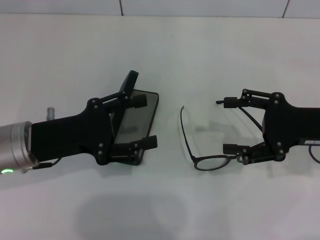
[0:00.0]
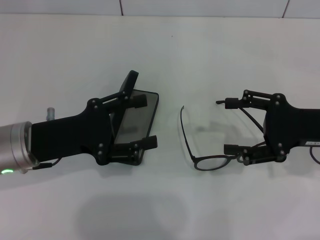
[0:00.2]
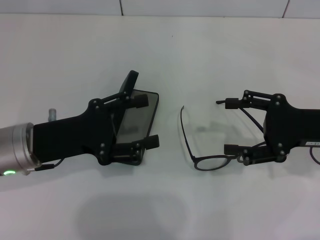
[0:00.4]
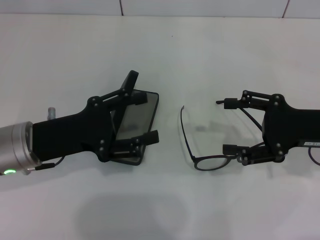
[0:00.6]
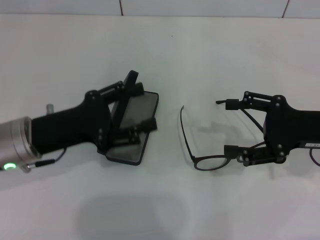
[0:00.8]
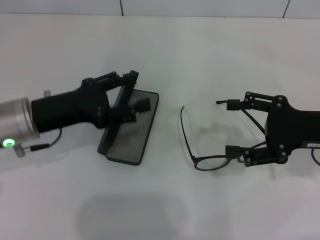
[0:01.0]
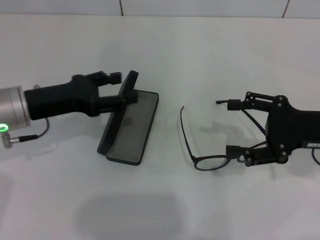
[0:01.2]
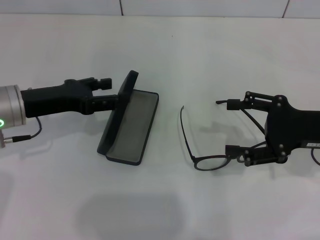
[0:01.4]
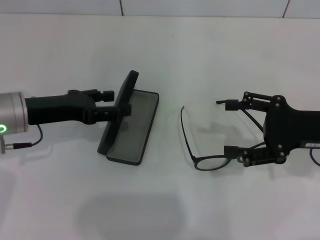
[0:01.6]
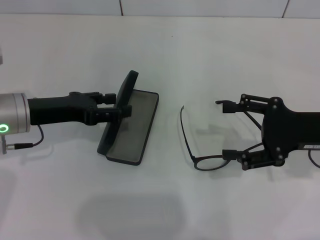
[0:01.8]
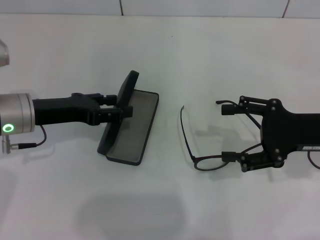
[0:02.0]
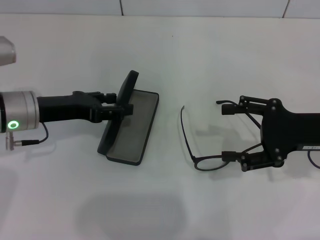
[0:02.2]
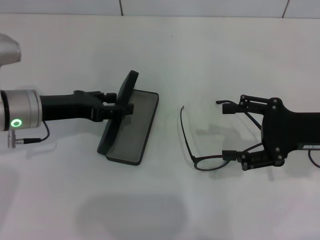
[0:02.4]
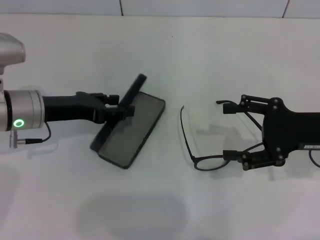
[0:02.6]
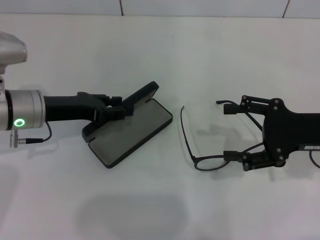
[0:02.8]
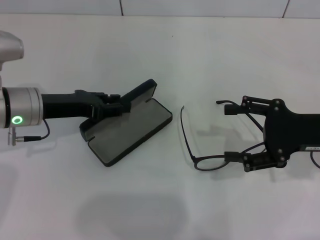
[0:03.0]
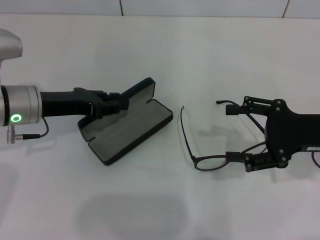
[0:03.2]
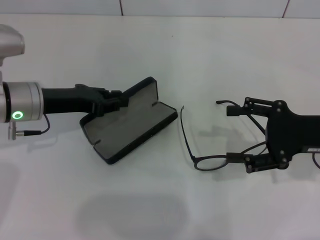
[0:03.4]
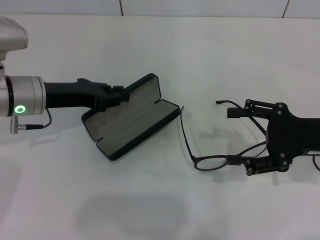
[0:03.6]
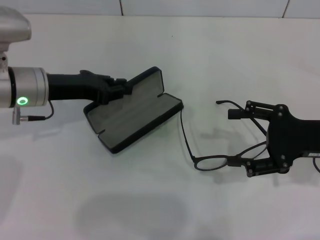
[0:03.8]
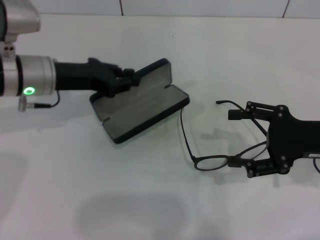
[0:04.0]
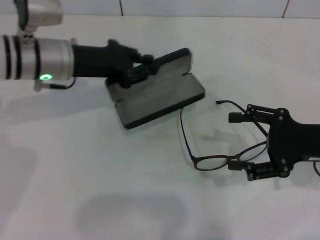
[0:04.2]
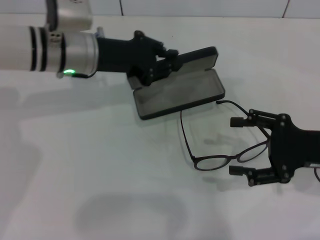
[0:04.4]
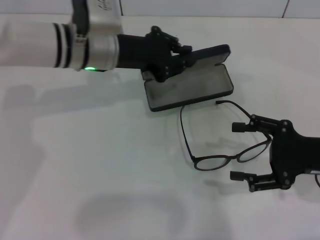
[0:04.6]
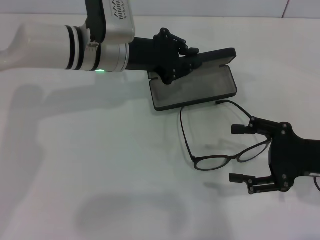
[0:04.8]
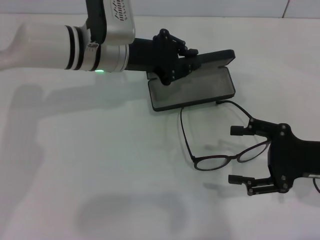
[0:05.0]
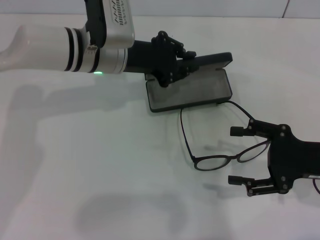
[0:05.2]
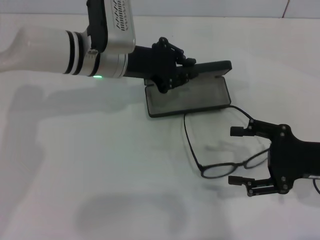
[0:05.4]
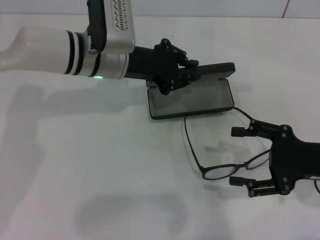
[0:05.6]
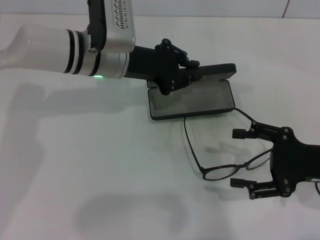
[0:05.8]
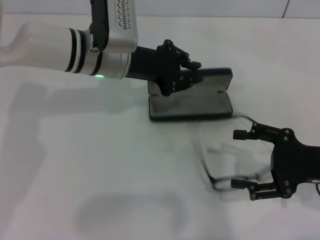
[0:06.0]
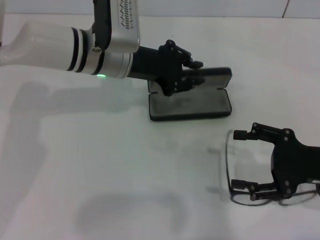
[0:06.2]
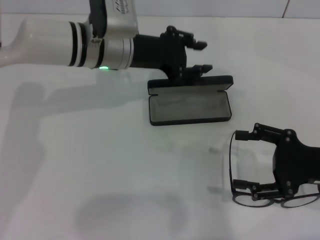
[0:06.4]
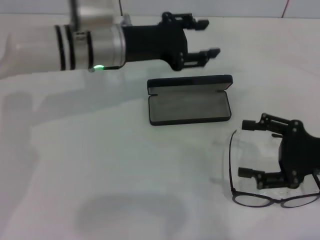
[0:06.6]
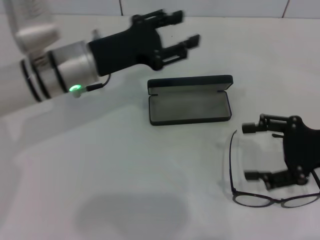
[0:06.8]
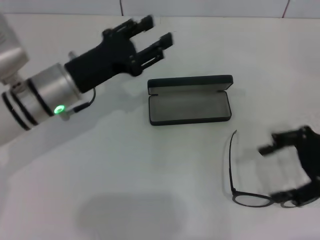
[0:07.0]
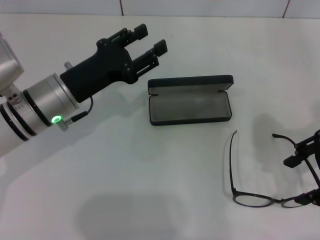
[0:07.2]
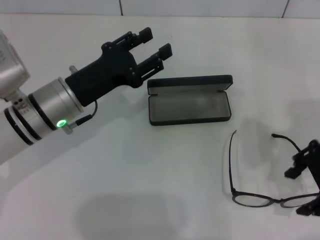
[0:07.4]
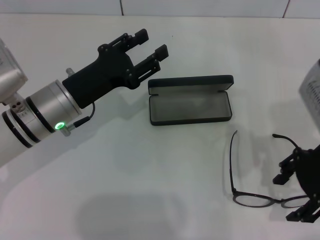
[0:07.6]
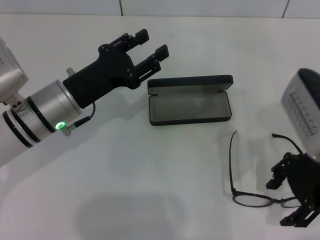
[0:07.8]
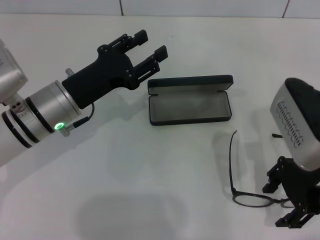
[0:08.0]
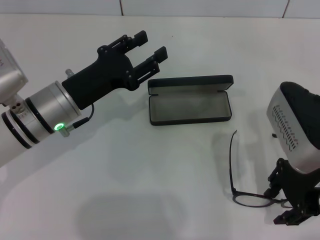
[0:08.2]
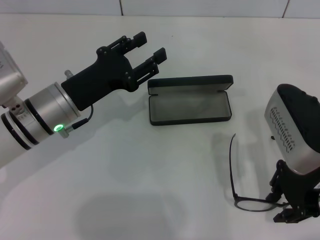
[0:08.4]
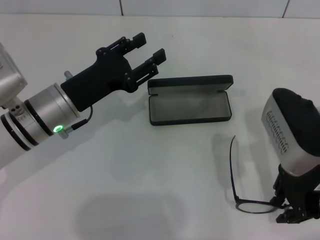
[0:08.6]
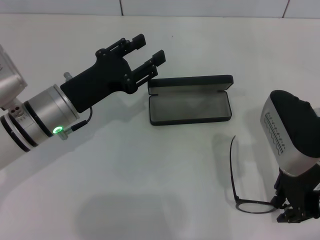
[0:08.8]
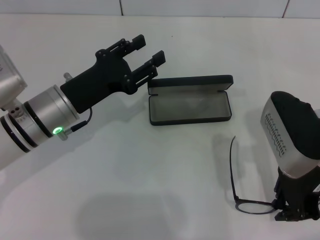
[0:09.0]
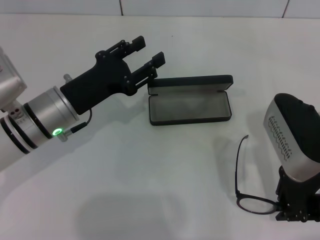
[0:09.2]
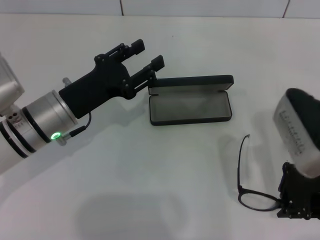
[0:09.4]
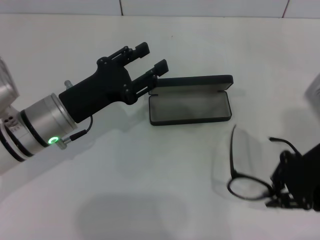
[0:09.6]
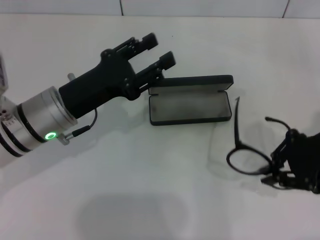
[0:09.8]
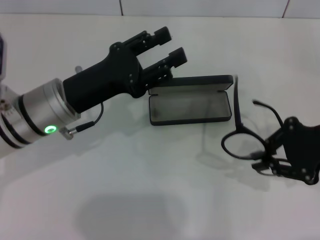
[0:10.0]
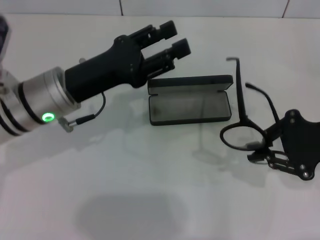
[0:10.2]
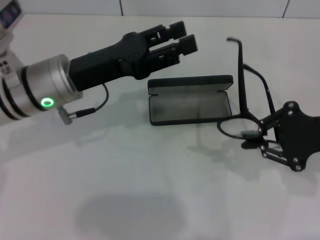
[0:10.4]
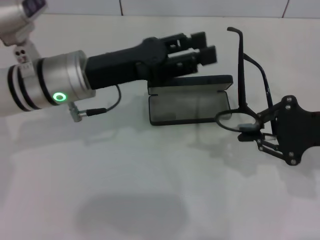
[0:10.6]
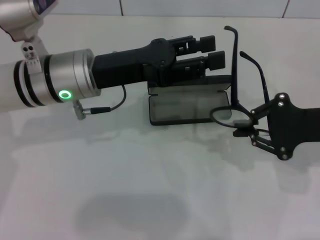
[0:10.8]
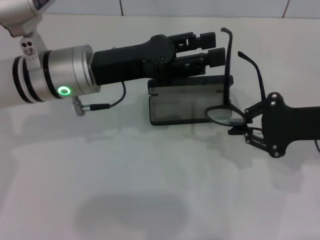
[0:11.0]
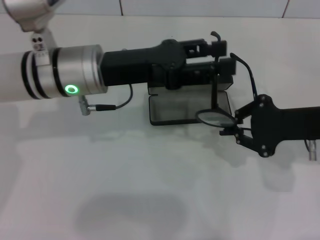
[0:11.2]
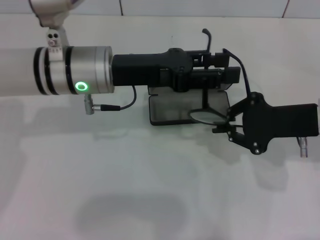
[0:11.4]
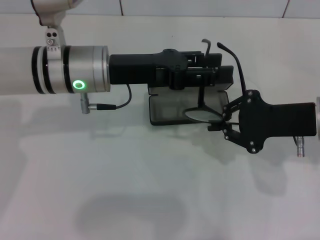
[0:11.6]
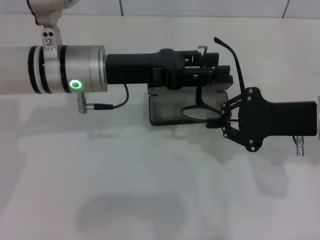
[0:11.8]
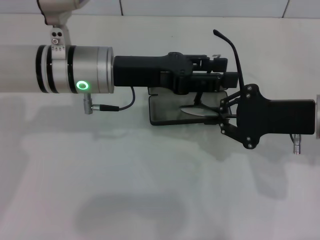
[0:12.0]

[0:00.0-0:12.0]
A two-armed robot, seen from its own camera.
Step, 0:00.0 to 0:03.6: Grab the glasses case with your left hand.
Step, 0:03.8 to 0:06.2: Place the glasses case in the center of the table with your left hand.
Step, 0:06.4 to 0:09.2: Grab the eyeglass frame with your right hand.
0:00.0 to 0:01.6: The left gripper shifts by approximately 5 cm.
0:01.6 to 0:03.0: The left gripper closes its fingers.
0:03.0 to 0:04.4: The left gripper heads to the right, forward and upward, covering roughly 10 cm, and closes its fingers.
0:06.0 to 0:07.6: The right gripper is displaced upward and to the left by roughly 10 cm, while the left gripper moves backward, to the left and downward, about 10 cm, and opens.
0:07.6 to 0:09.0: The right gripper closes.
0:09.0 to 0:10.4: The left gripper moves upward, roughly 5 cm. The right gripper heads to the right, covering roughly 10 cm.
0:10.4 to 0:12.0: The right gripper changes place by approximately 5 cm, while the left gripper changes place by roughly 5 cm.

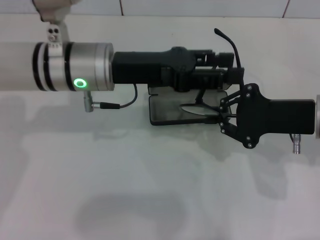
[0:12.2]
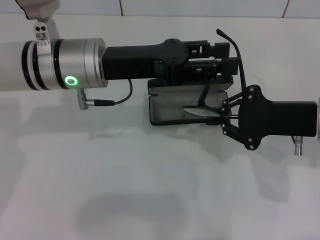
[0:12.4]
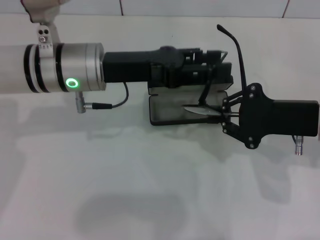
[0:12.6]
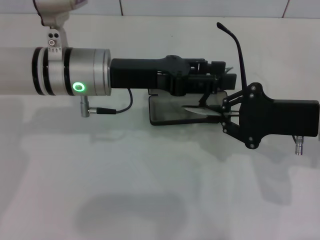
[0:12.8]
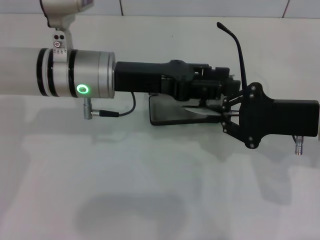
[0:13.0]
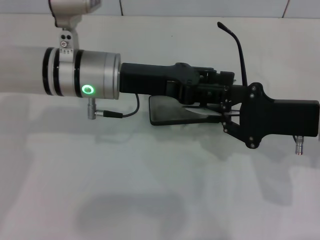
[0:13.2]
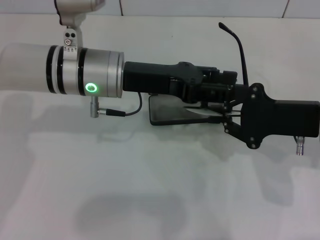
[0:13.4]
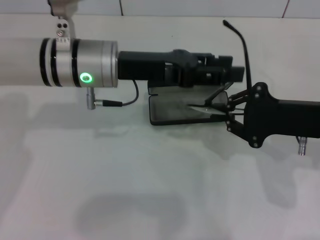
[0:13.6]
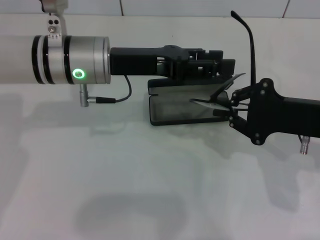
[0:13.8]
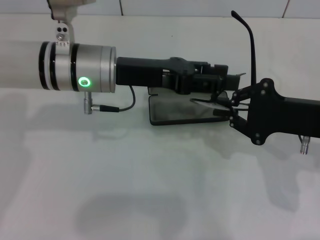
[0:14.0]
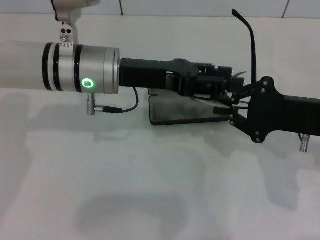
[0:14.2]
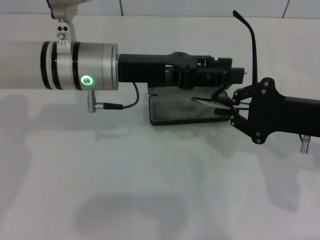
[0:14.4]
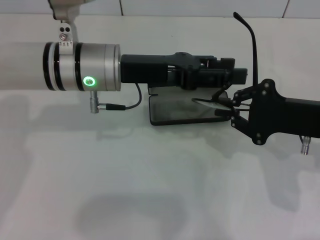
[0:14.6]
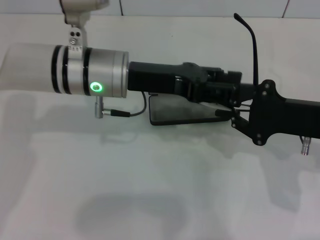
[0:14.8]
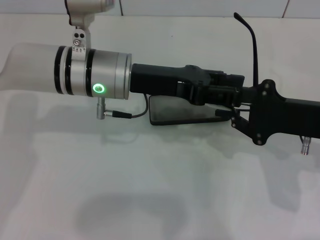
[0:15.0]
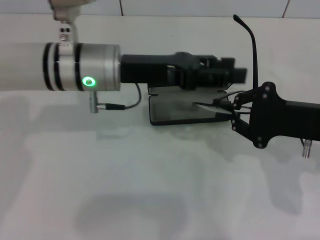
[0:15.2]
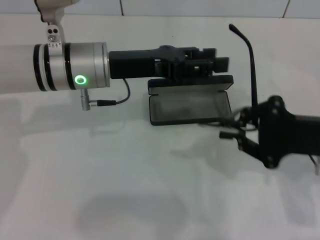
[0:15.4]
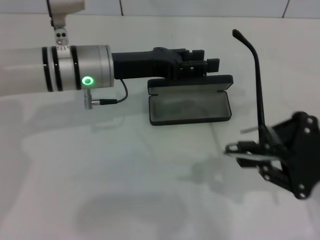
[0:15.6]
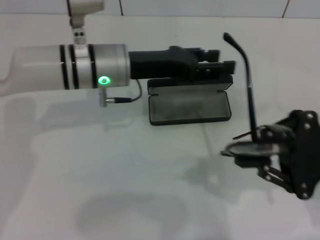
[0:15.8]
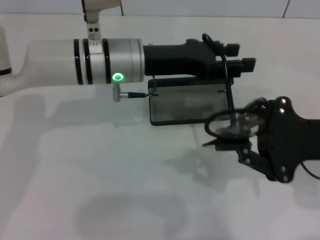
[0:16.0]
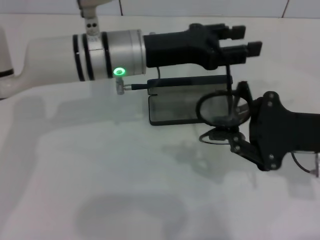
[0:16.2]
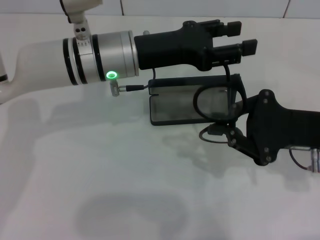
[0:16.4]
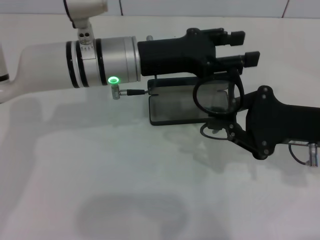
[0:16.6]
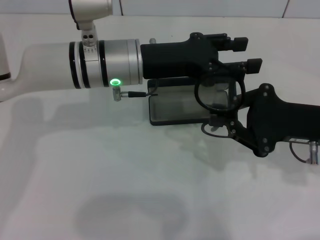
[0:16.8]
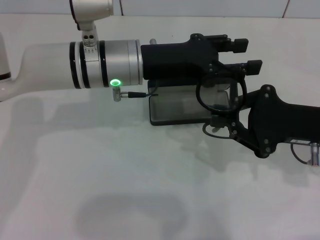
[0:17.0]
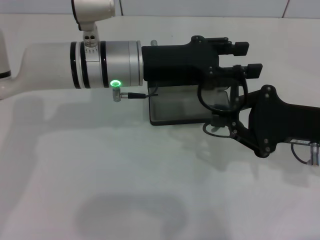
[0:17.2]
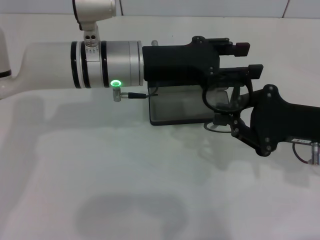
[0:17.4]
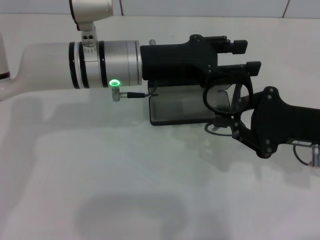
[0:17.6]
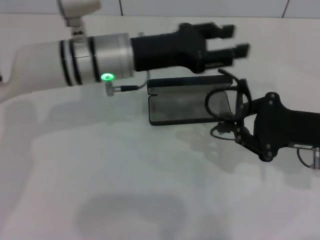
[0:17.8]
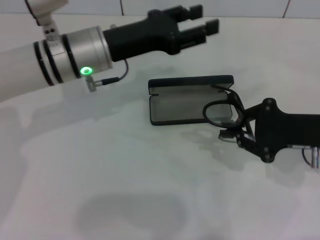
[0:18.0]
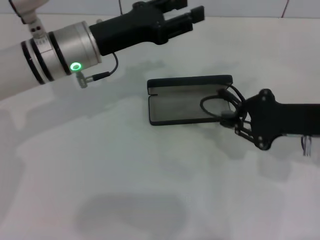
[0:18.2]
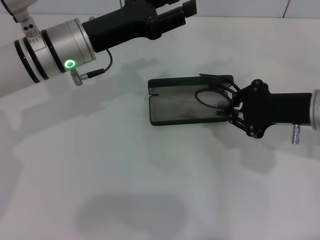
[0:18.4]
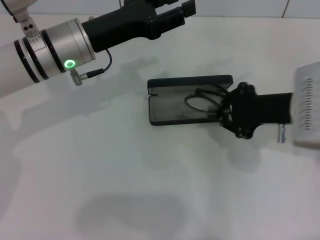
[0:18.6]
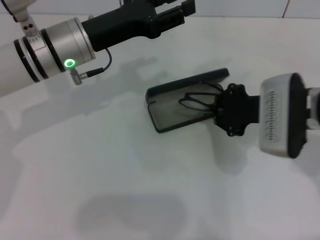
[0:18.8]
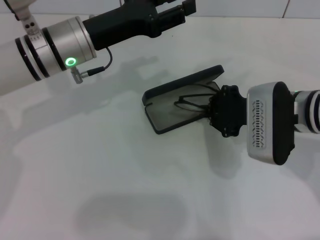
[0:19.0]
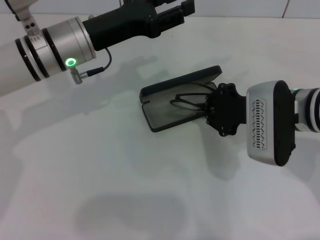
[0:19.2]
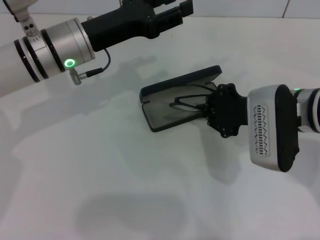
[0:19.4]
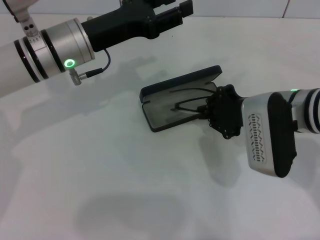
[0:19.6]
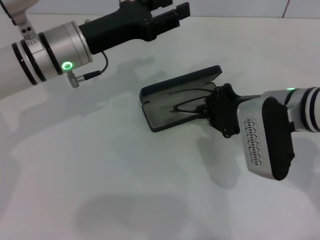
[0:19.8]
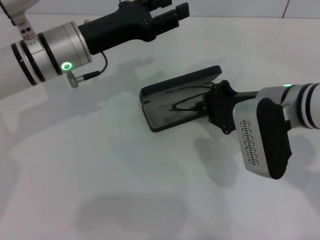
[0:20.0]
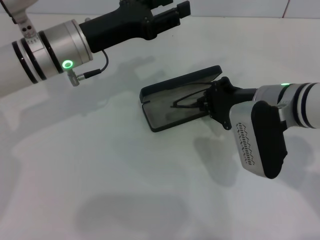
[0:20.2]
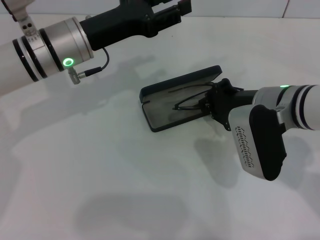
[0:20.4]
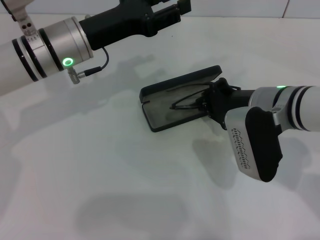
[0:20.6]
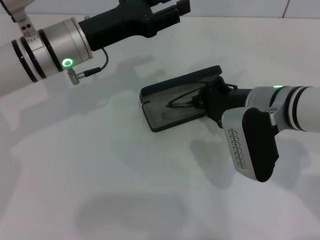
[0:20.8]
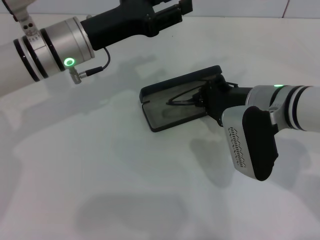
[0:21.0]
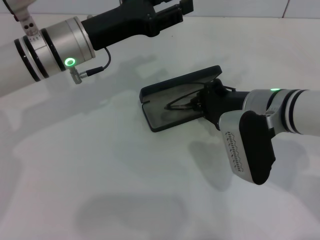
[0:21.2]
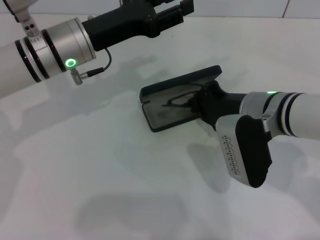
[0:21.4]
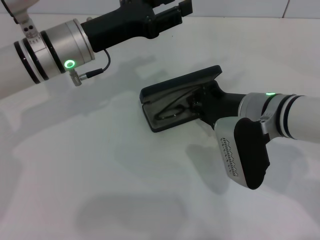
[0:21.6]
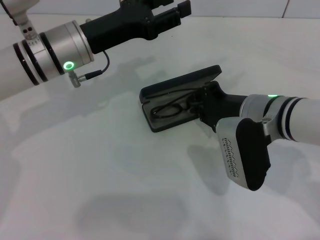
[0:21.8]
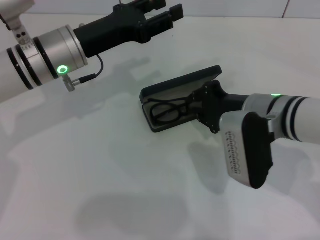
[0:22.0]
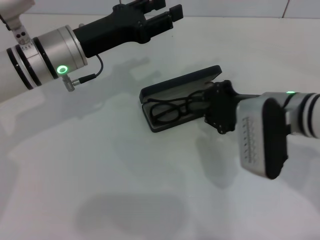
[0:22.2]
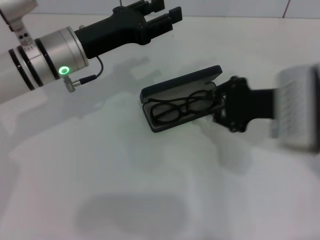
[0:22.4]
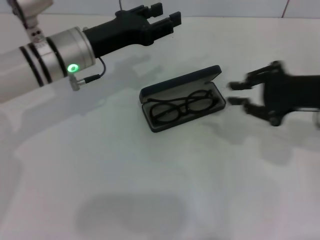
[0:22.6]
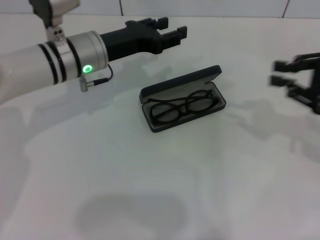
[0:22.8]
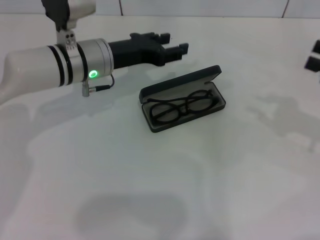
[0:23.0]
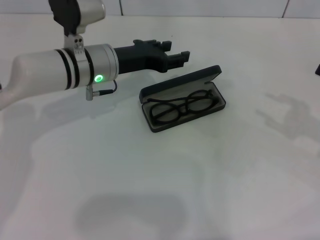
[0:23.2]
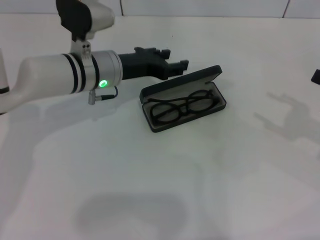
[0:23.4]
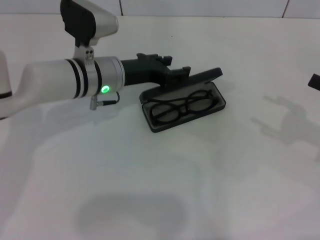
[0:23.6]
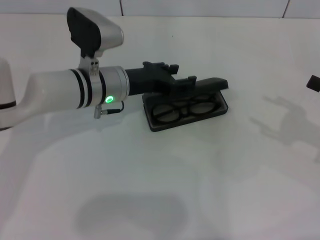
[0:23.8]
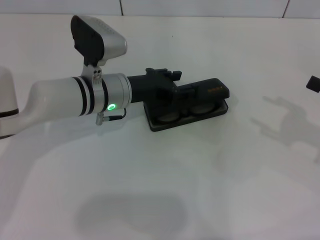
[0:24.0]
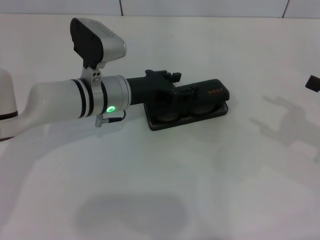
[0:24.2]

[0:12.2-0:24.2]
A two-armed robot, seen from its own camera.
Step, 0:12.2 to 0:17.4: Lift the glasses with your right hand.
Step, 0:17.6 to 0:22.0: Put the glasses into the case with your right hand.
0:12.2 to 0:15.2: The grippers move only a little.
0:16.6 to 0:18.2: The left gripper shifts approximately 5 cm to the left.
0:18.2 to 0:19.8: The right gripper shifts roughly 10 cm to the left.
0:19.8 to 0:21.2: The grippers make only small movements.
0:21.2 to 0:22.6: The right gripper heads to the right and upward, covering about 15 cm.
0:22.6 to 0:24.2: The left gripper goes roughly 5 cm downward; the right gripper moves to the right, about 10 cm, and opens its fingers.
